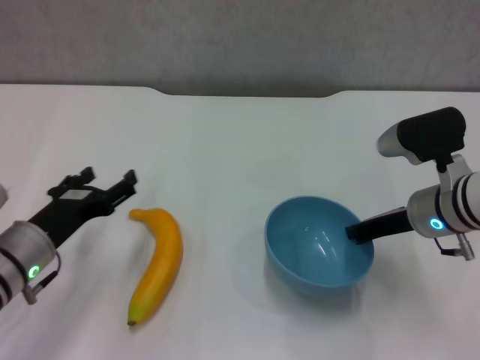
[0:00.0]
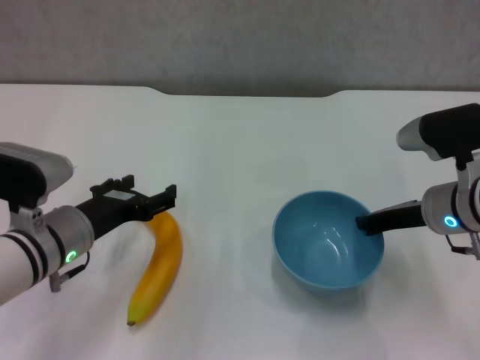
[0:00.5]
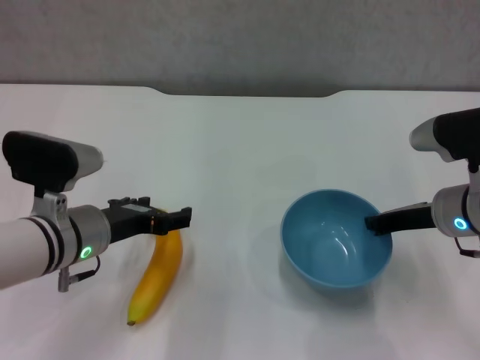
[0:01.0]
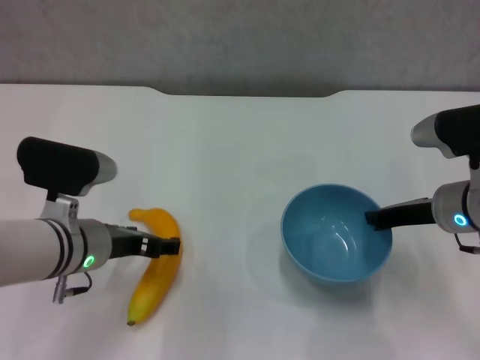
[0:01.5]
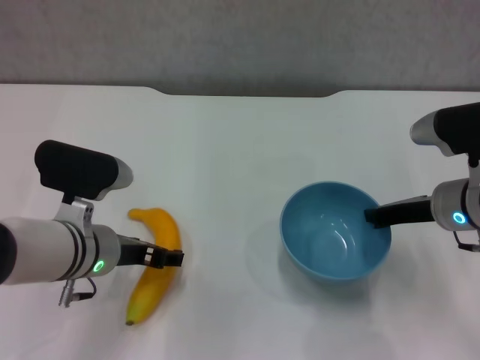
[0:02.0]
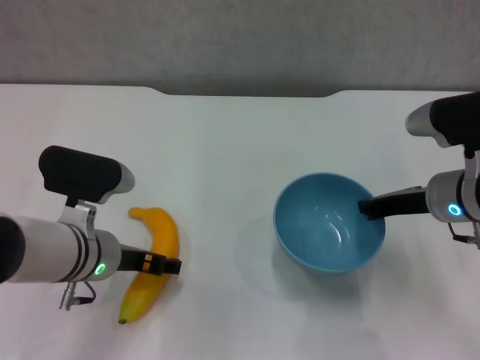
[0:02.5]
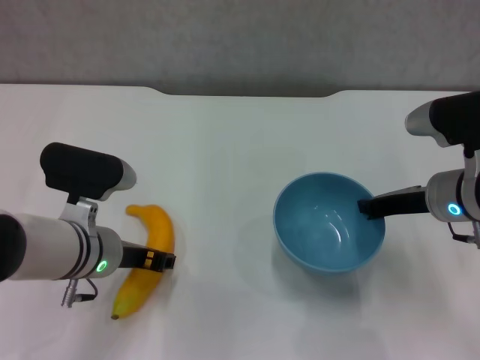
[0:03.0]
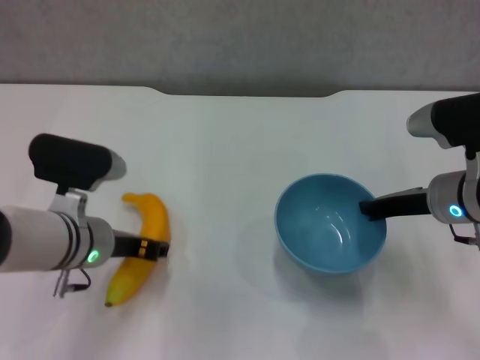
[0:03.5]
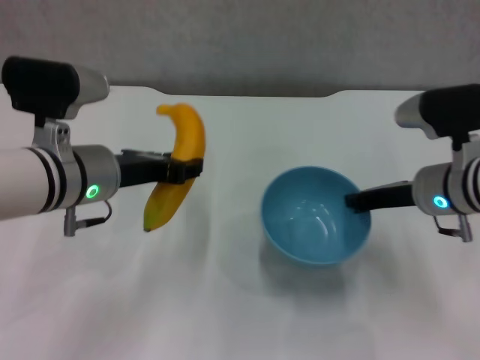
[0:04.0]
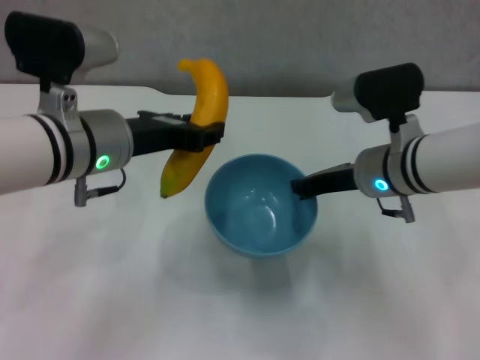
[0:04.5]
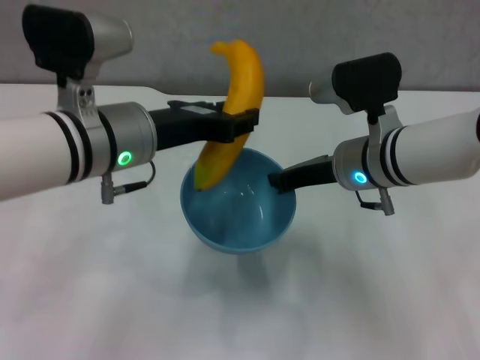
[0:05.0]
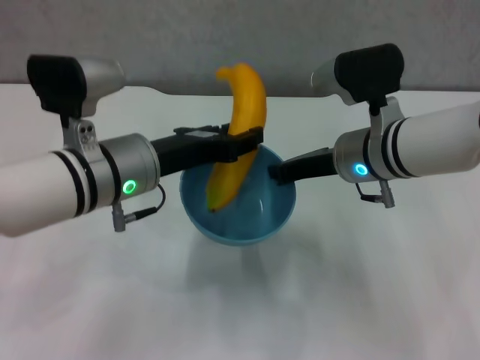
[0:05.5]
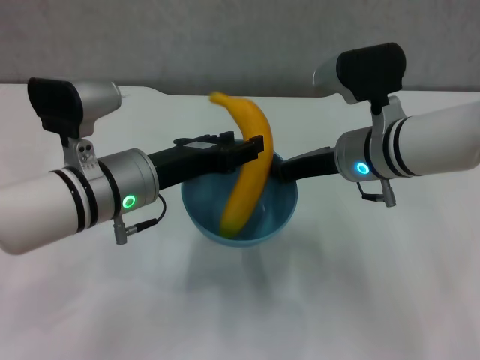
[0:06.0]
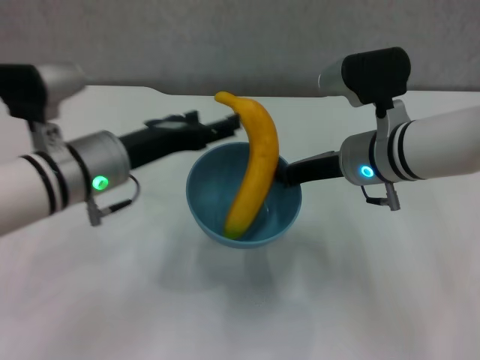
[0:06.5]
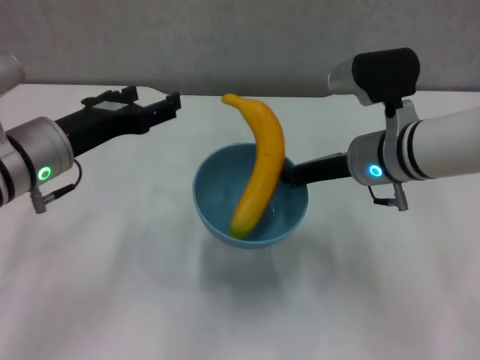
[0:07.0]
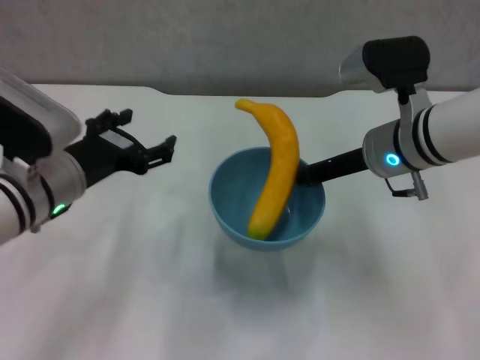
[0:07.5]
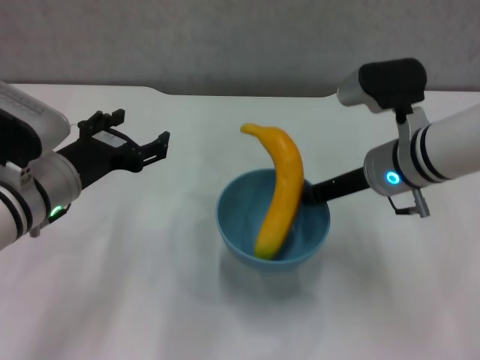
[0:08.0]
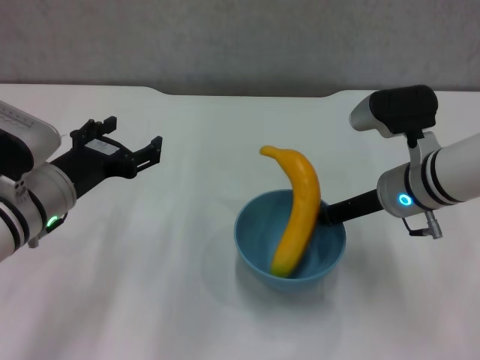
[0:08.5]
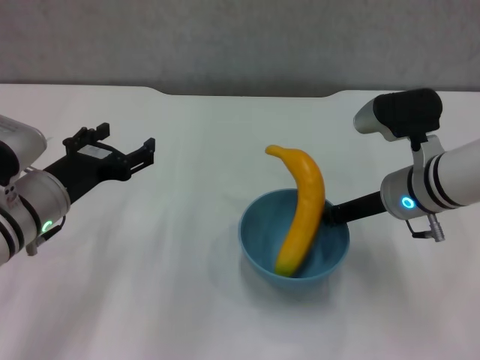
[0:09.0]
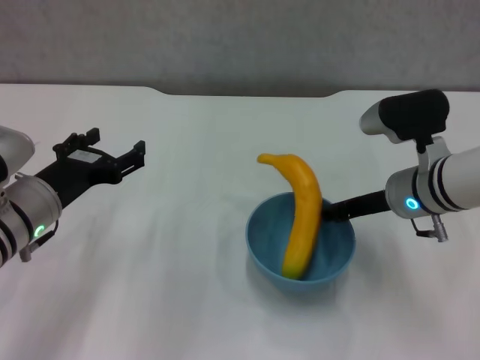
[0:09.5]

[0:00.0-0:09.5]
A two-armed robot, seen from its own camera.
Step, 0:00.0 to 0:01.0: Lift the blue bowl with right gripper.
Step, 0:01.5 to 0:03.0: Grasp the banana with left gripper.
Step, 0:03.5 to 0:06.0: Place the banana in the blue bowl with left gripper.
0:00.0 to 0:02.0: The left gripper travels to the right by roughly 5 cm.
0:02.0 to 0:04.0: The left gripper travels upward by approximately 10 cm, and closes its fingers.
0:04.0 to 0:05.5: The right gripper shifts some 10 cm to the left.
0:05.5 to 0:07.5: The left gripper goes approximately 5 cm to the left, and opens.
0:07.5 to 0:09.5: The right gripper goes some 5 cm downward.

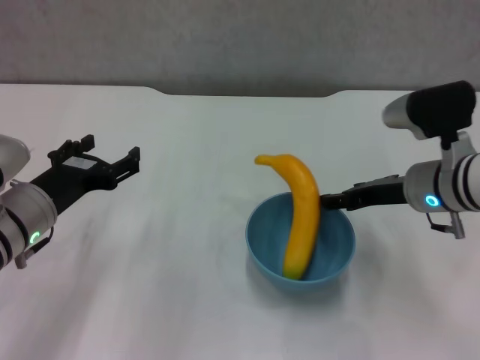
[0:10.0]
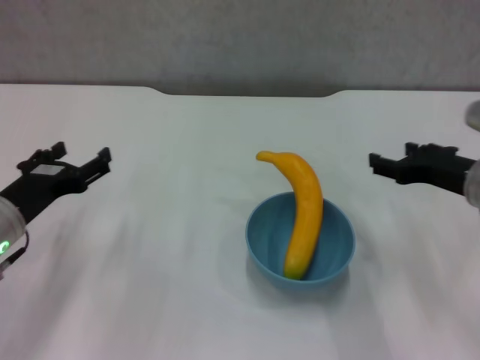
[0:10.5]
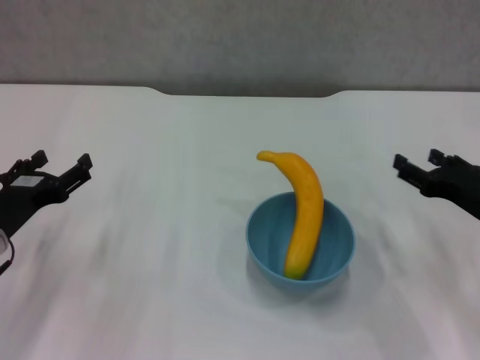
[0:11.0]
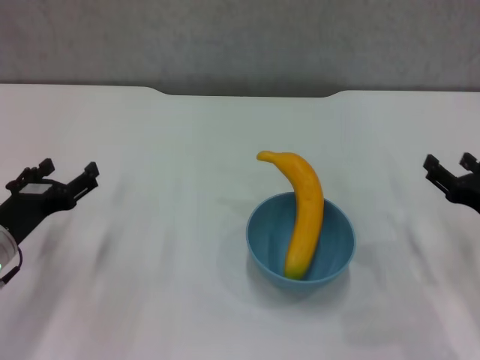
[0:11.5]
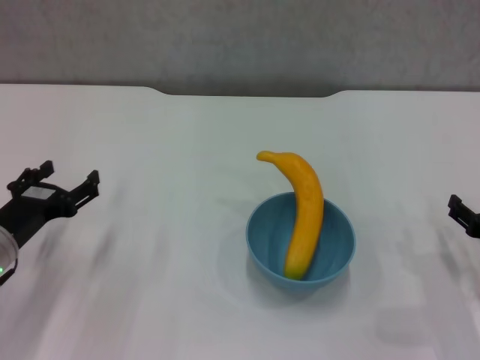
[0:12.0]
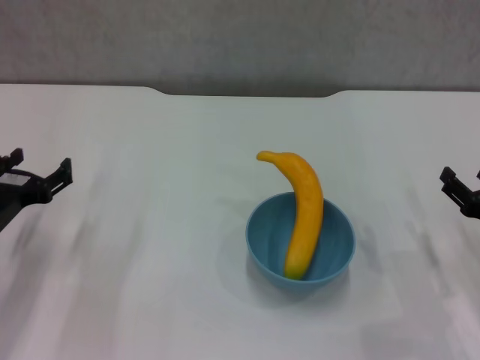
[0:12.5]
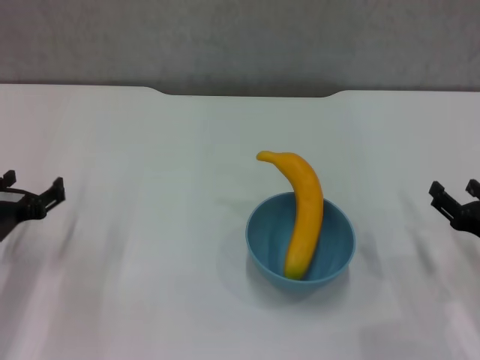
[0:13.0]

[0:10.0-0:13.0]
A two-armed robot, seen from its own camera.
0:10.0 to 0:11.5: The right gripper shifts roughly 15 cm to the right, backward and downward. Meanwhile the left gripper shifts by roughly 5 cm.
0:11.5 to 0:13.0: The grippers stay close to where they were, moving slightly.
